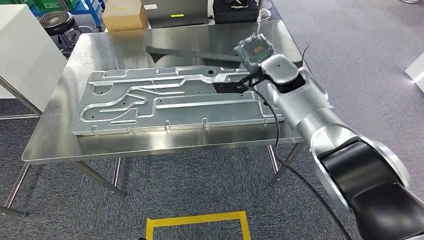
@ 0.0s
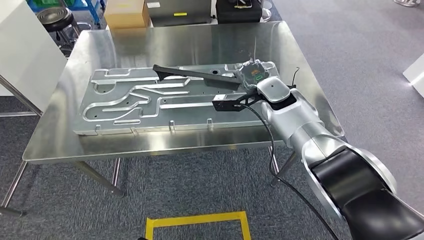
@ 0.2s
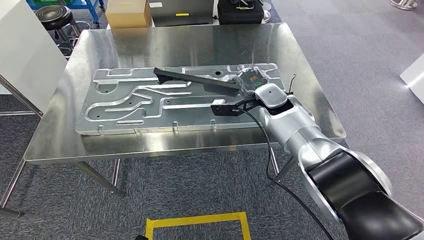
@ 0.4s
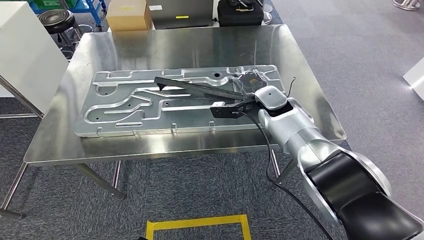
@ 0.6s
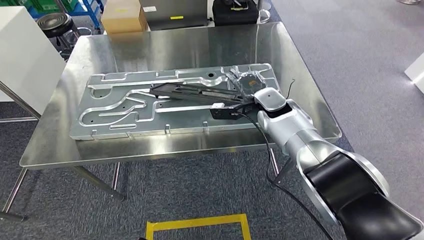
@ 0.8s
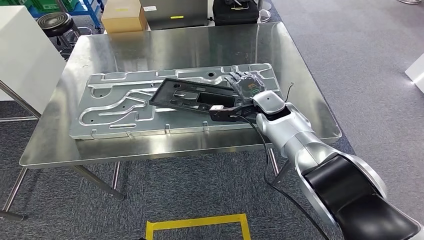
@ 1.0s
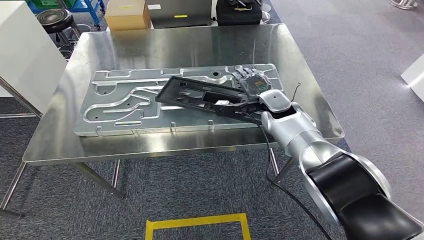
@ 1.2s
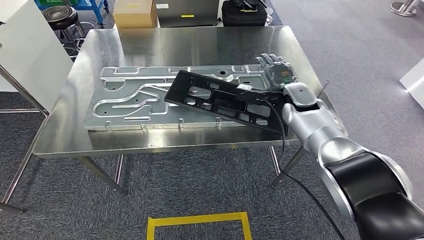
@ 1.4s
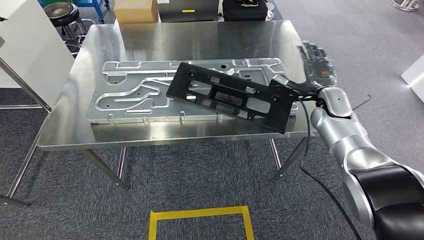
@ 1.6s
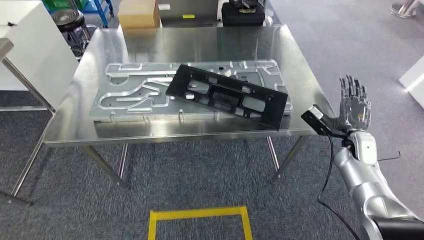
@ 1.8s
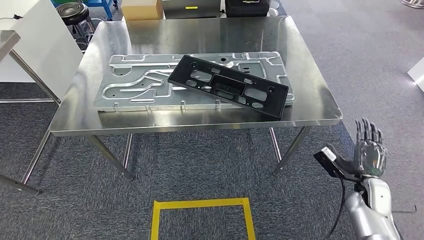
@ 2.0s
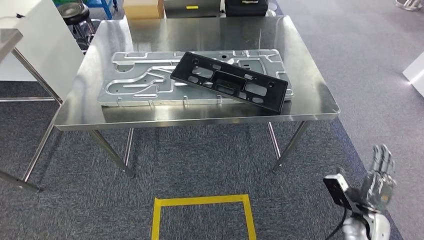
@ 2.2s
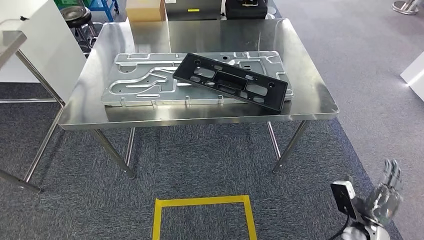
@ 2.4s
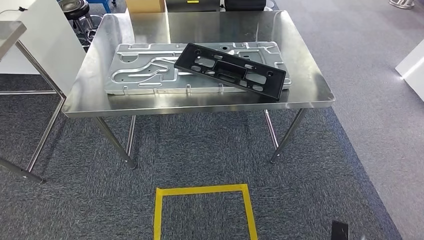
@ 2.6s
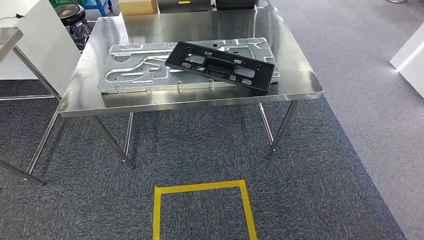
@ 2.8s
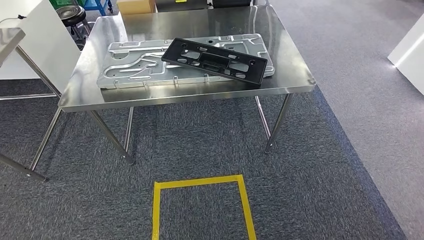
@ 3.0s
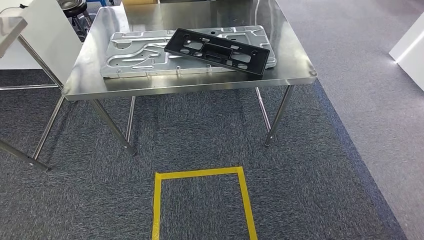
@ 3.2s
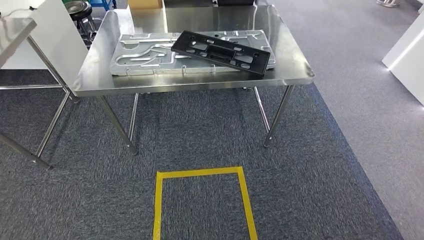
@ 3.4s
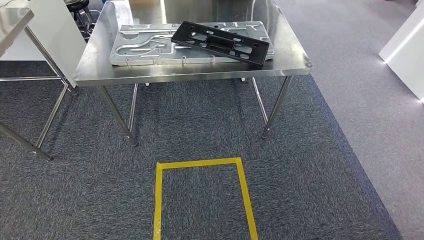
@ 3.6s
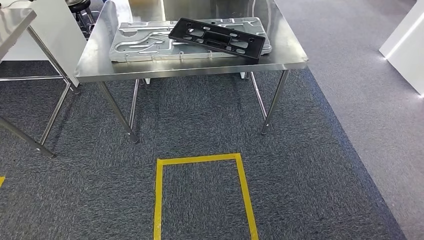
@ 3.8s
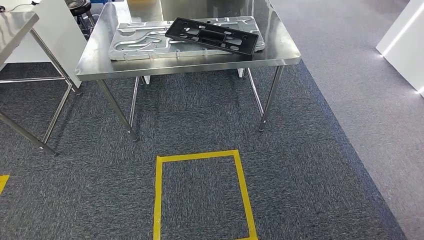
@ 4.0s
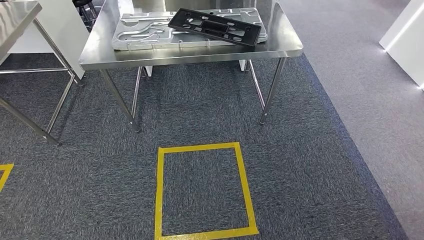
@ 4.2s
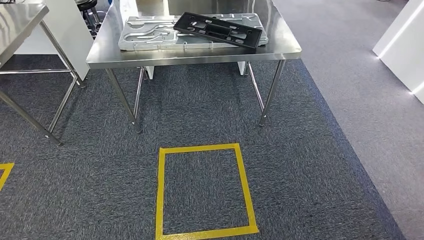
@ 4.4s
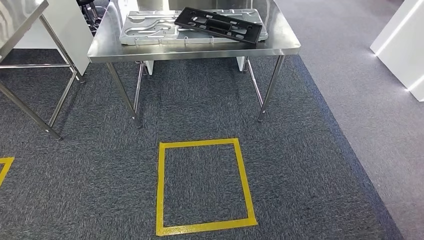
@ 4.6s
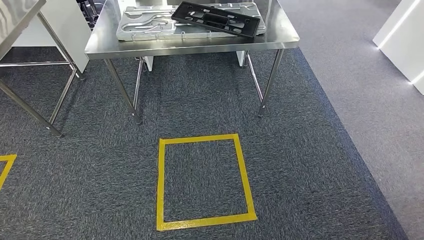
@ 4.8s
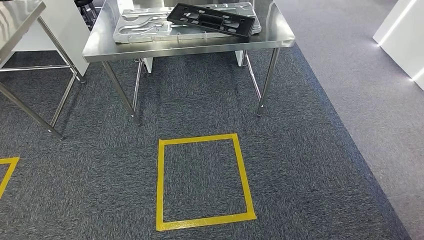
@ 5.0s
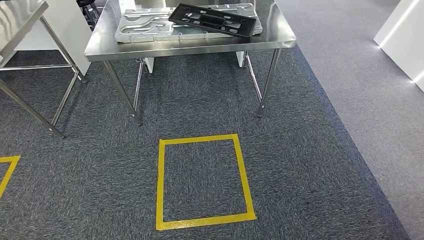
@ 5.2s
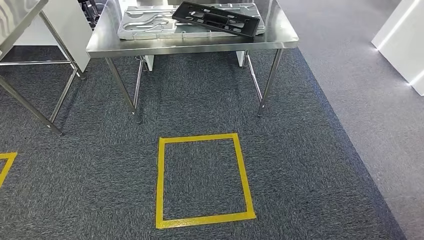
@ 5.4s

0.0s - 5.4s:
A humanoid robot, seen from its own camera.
Step, 0.0s - 2.2s: Insert the large material into the corresponding slot on the workbench.
Step, 3.0s - 5.2s: Move to the initial position of the shelf.
